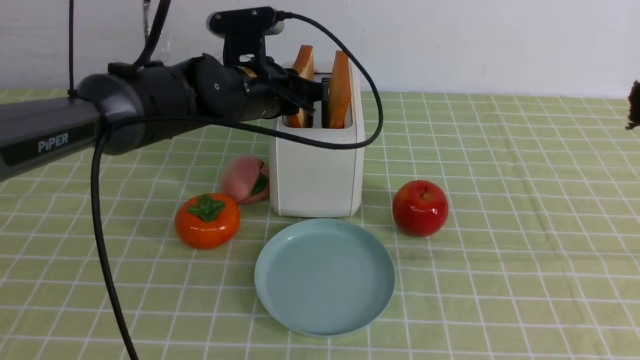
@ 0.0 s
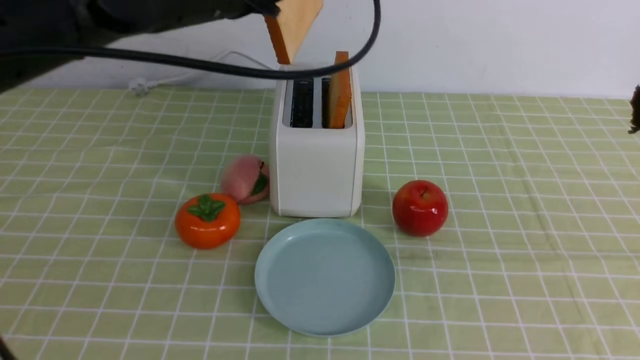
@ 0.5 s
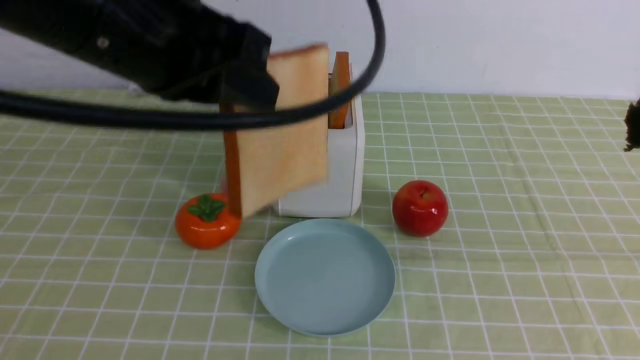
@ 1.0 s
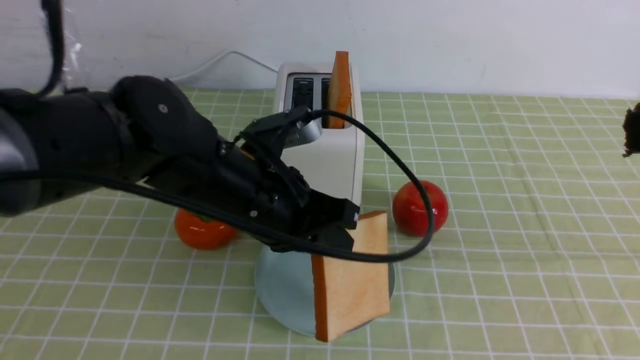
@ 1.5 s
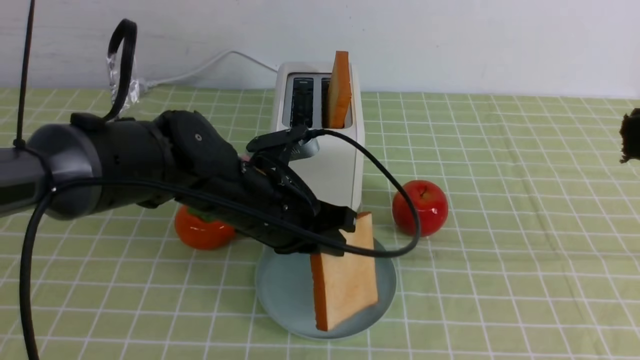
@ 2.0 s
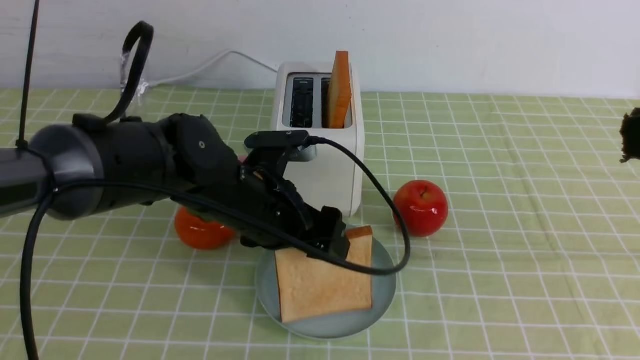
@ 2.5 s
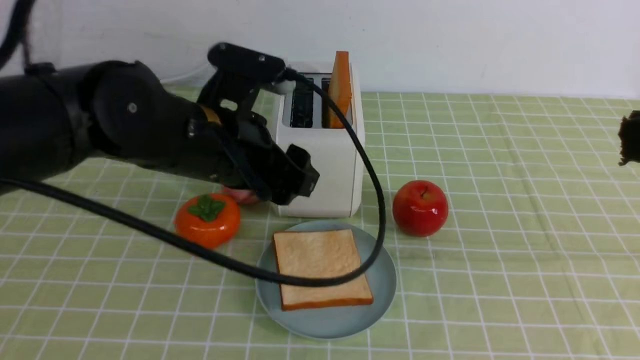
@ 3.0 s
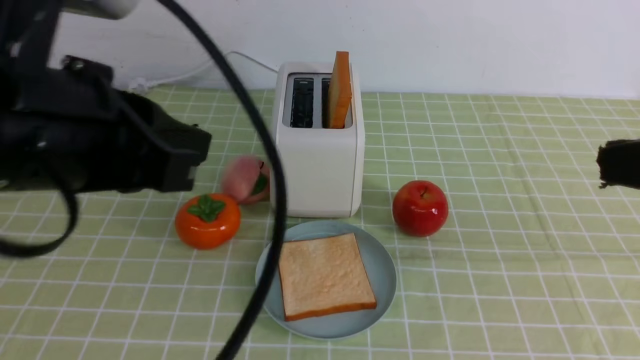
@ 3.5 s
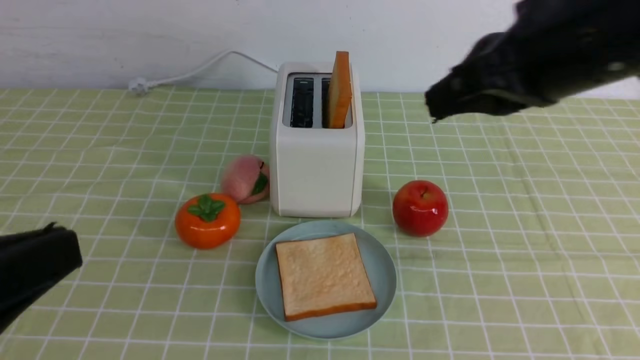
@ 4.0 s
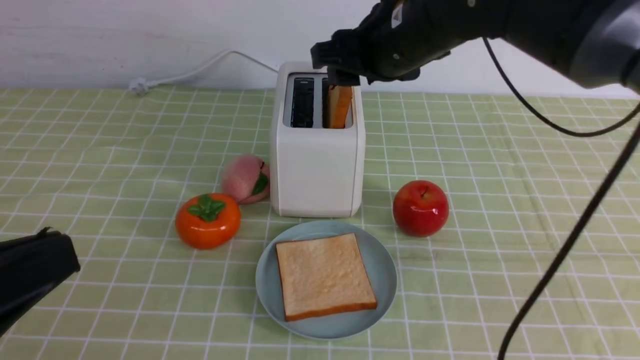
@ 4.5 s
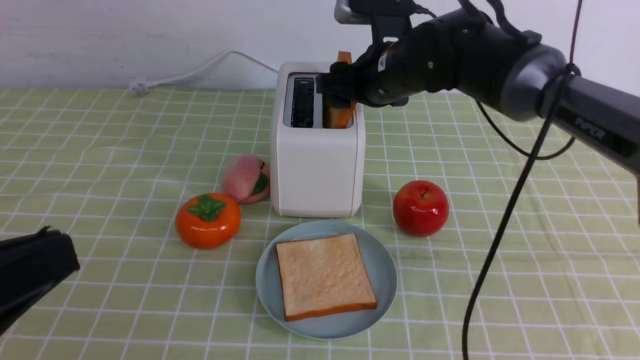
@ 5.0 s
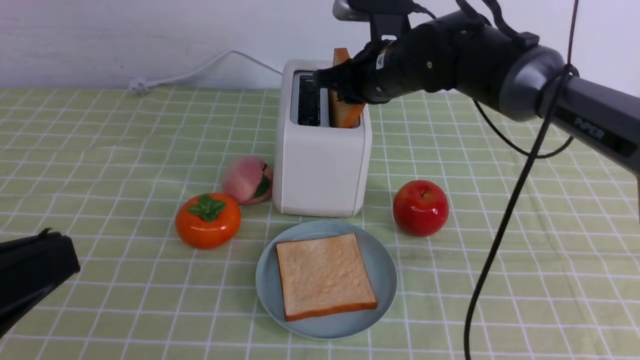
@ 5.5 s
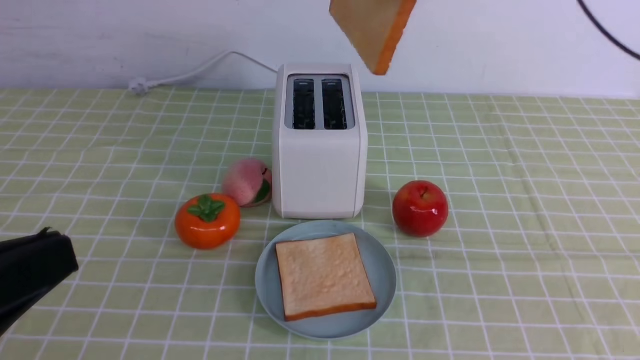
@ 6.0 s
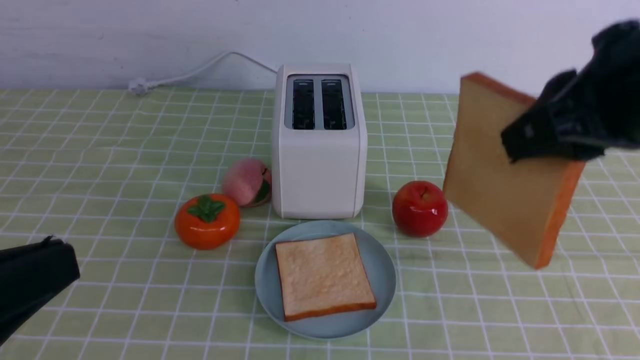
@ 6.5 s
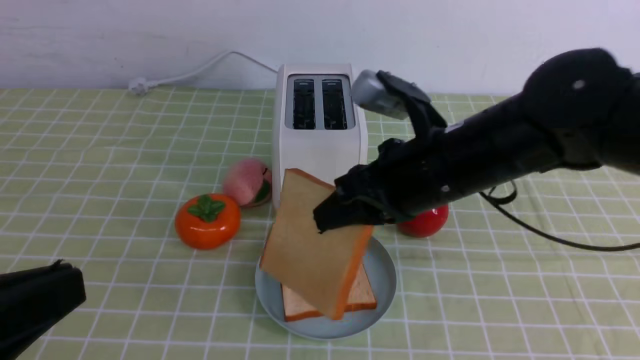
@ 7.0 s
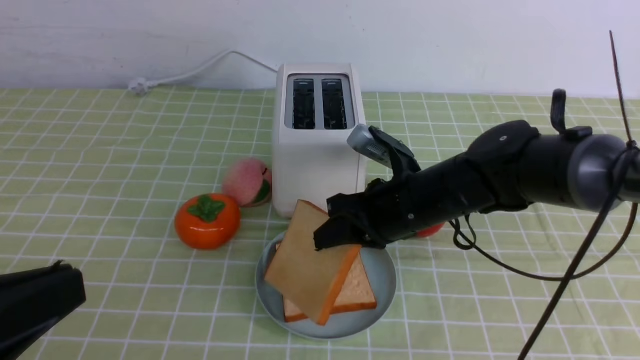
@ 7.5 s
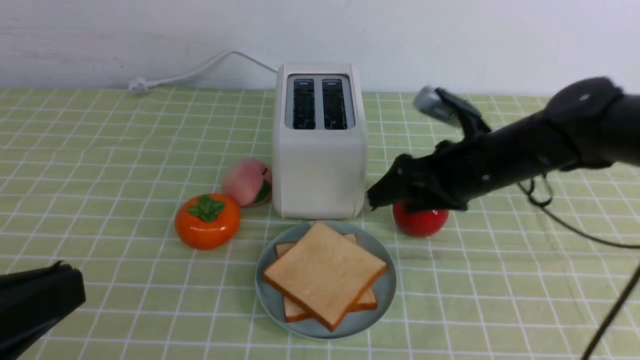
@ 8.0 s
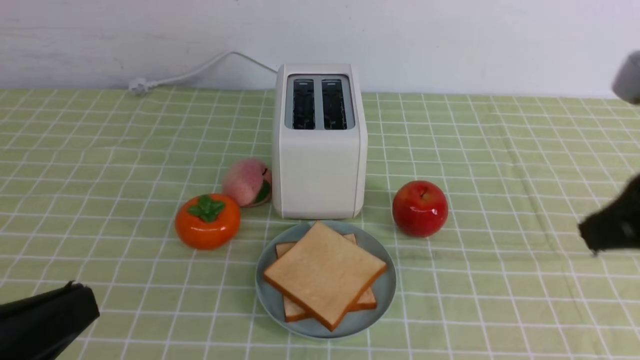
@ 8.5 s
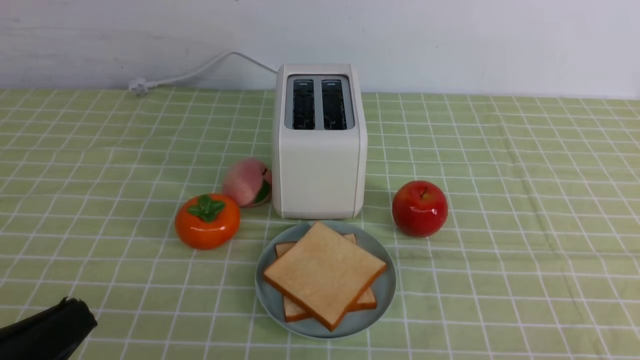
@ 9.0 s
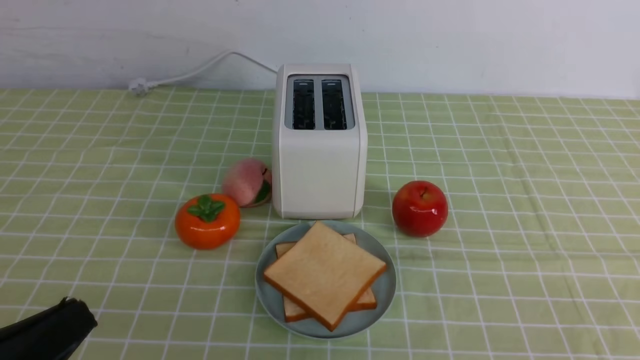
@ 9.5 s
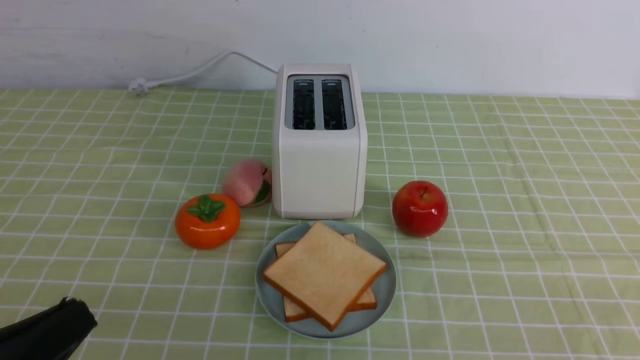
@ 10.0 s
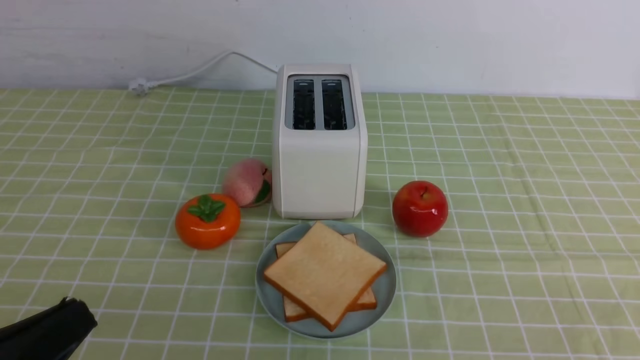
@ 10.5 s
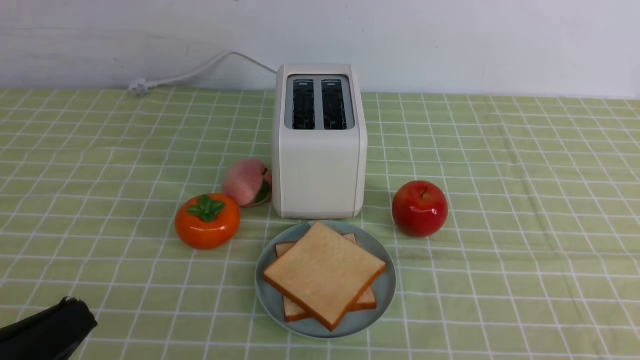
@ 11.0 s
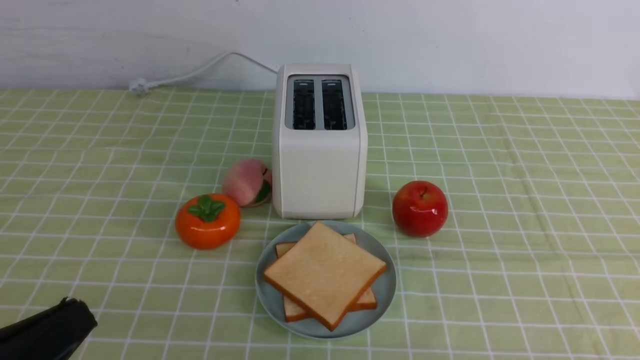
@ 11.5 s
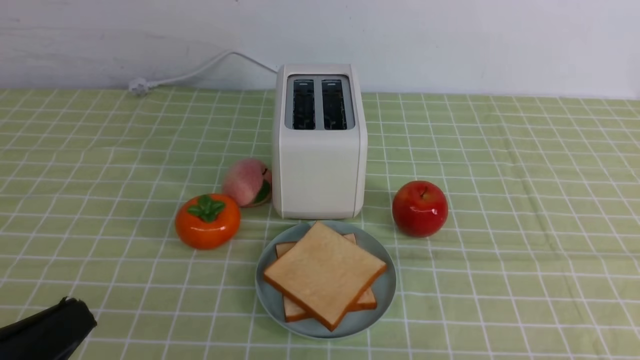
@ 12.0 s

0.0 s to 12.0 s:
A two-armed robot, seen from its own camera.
Task of the whole recording: take toasted bread from bread machine on green coffee tablecloth place on plate.
Step, 1.0 to 2.5 s: use the left arm to put a slice of bread into the empty plate.
Step, 3.0 to 5.5 s: use the right arm to take out a slice of bread.
Step, 6.0 to 8.0 s: use the right arm to put a slice of bread into the plate.
0.0 to 2.0 s: The left gripper travels backward by roughly 10 cm, and travels upward and back again, roughly 10 cm each way.
2.0 to 4.0 s: The left gripper heads backward, to the left and upward, covering approximately 30 cm, and opens and closes again; the right gripper moves forward and to the left, about 20 cm.
4.0 to 6.0 s: The right gripper goes forward and returns, approximately 20 cm each way, and opens, then closes once more.
6.0 to 8.0 s: The right gripper travels downward by about 20 cm, and opens its fingers.
8.0 to 10.0 s: The right gripper shifts roughly 30 cm backward, and closes its fingers, while the left gripper shifts roughly 10 cm downward.

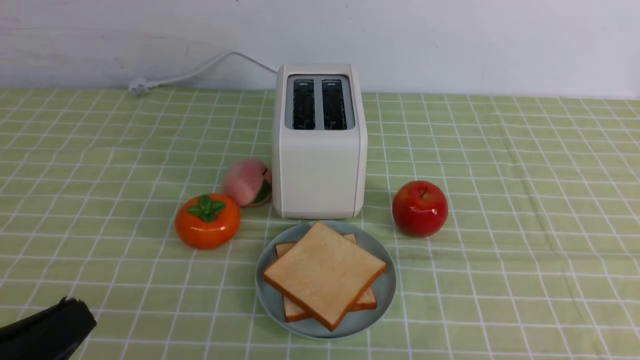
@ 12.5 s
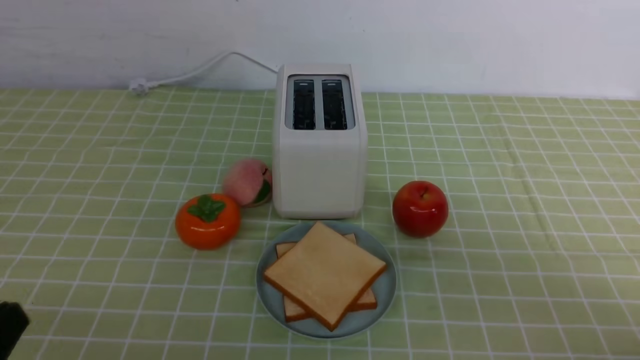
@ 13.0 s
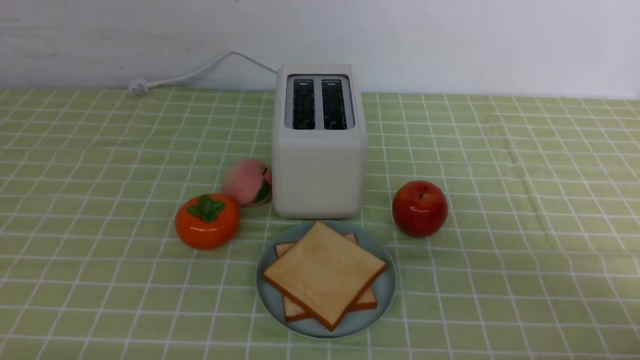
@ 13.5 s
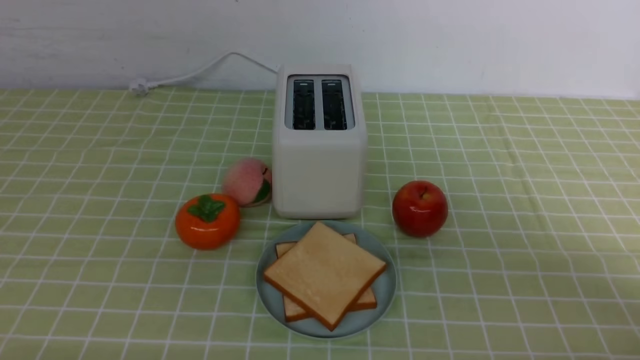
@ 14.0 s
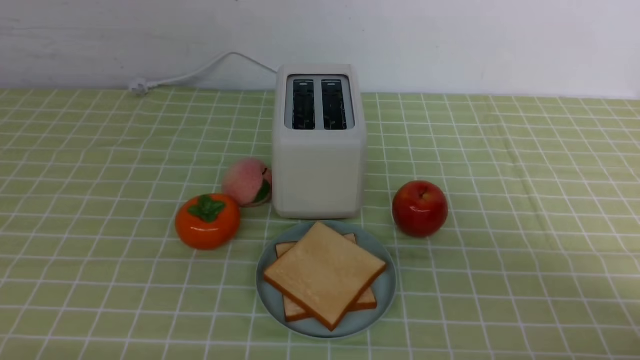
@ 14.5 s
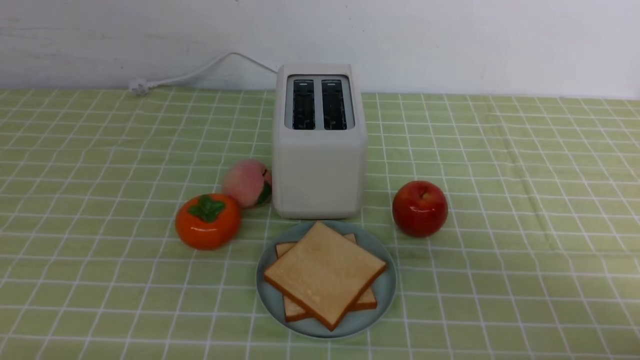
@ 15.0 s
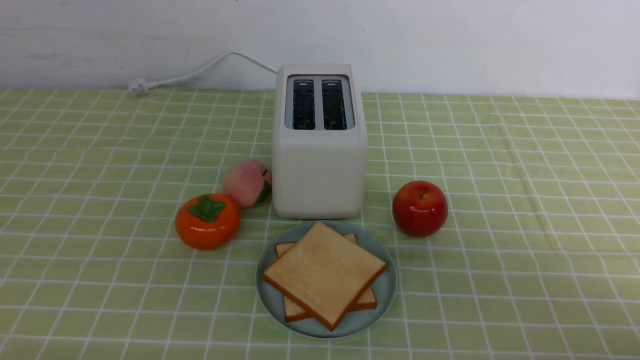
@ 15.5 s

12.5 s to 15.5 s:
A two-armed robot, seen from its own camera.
Task of the whole recording: take toasted bread from bread machine on green coffee tablecloth place on plate.
12.5 to 14.0 s: The left gripper shifts about 10 cm downward.
14.0 to 15.5 s: Neither gripper changes place.
